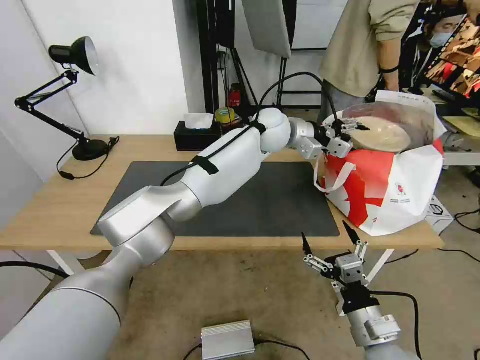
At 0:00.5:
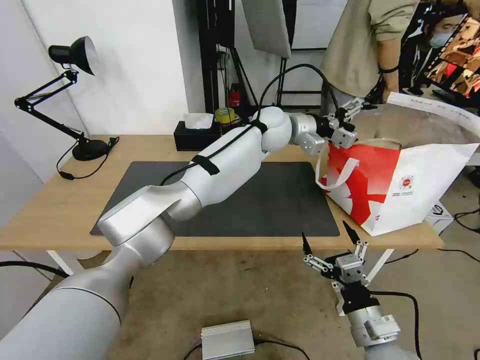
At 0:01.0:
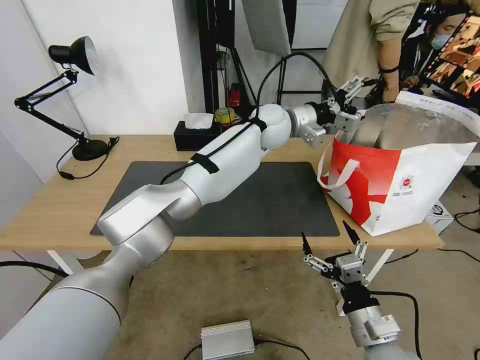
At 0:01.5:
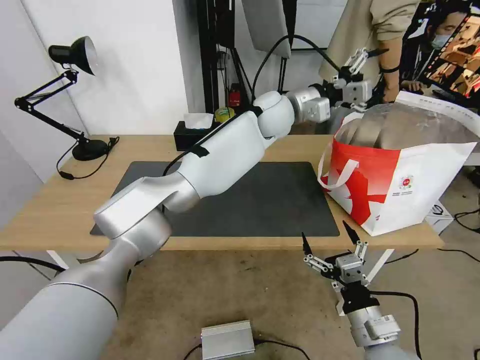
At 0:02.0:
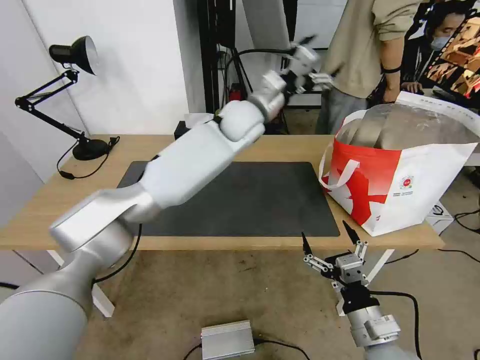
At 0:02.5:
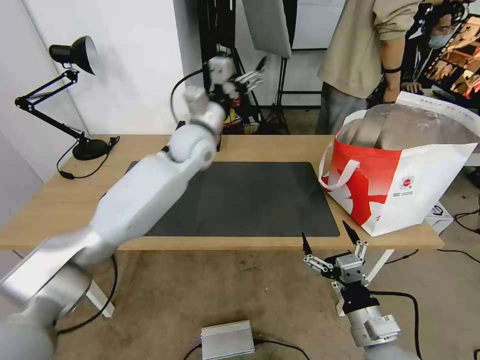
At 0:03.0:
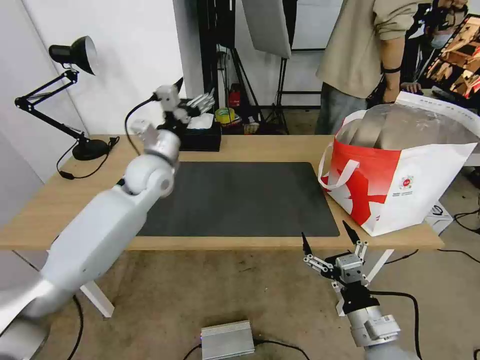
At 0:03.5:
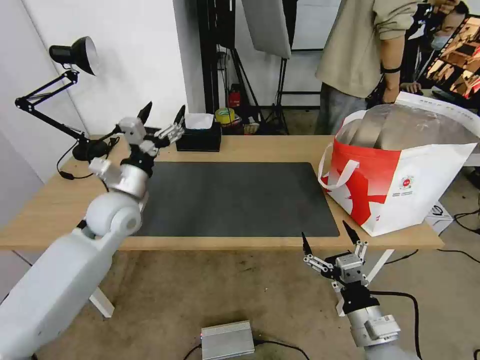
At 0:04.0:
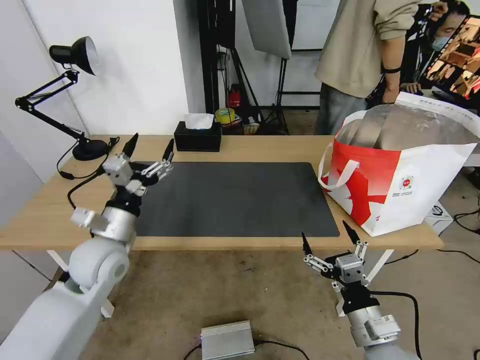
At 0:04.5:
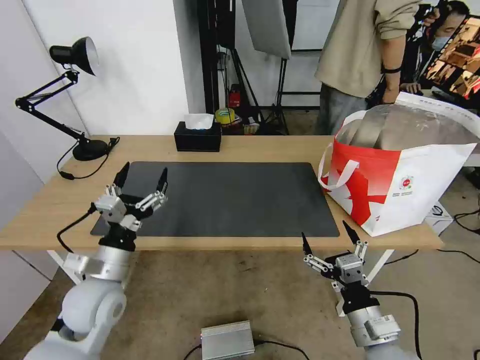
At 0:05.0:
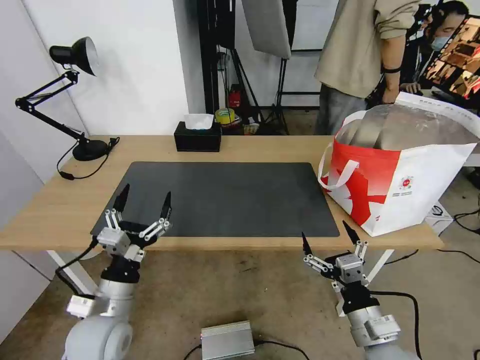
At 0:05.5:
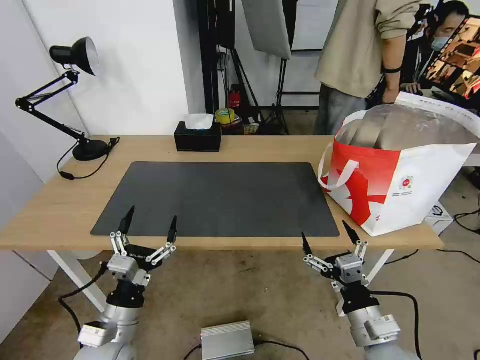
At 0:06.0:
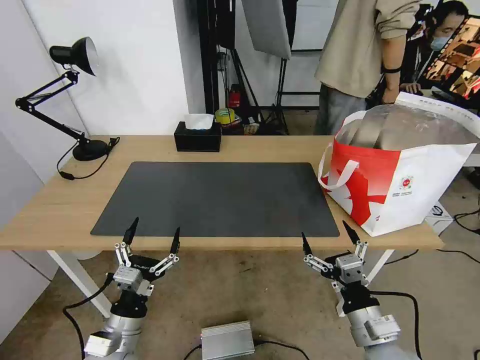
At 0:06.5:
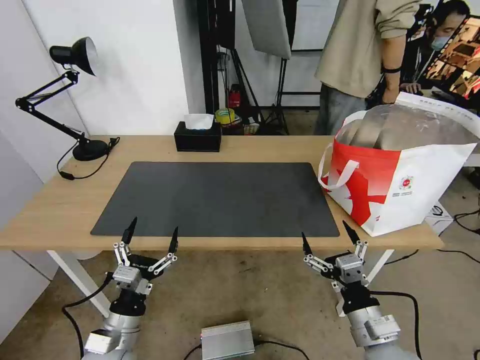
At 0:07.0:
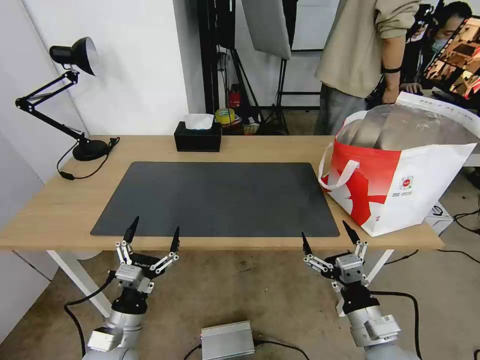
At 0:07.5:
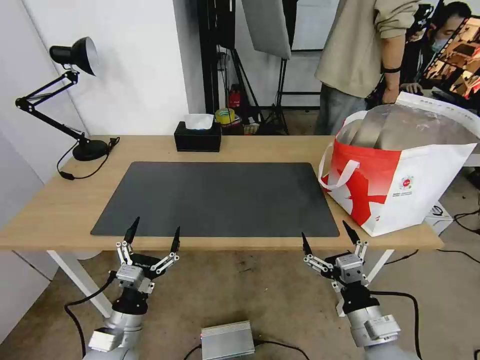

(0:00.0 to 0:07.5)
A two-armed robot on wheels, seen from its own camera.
Task of the whole recording: Pick up the trash from the table and place it into the takeout bag.
0:00.0 - 0:02.0: The left gripper is displaced to the left by some 5 cm.
0:02.0 - 0:04.0: The left gripper shifts approximately 40 cm to the left, backward and downward.
0:04.0 - 0:05.5: The left gripper heads backward and downward, covering some 20 cm.
0:05.5 - 0:07.5: The grippers make only small movements.
